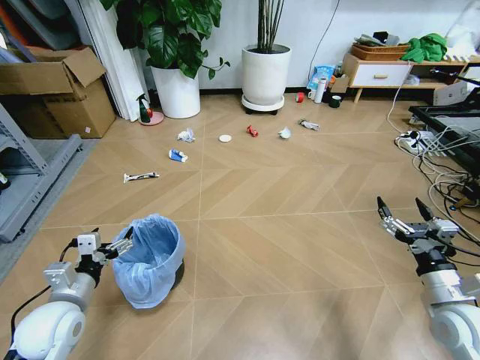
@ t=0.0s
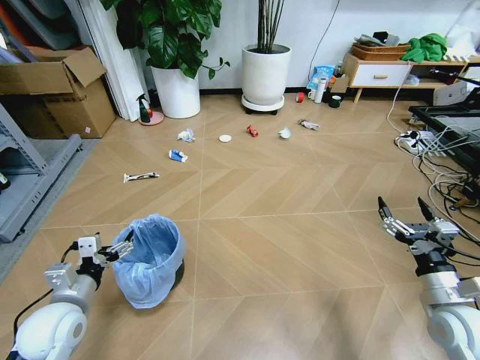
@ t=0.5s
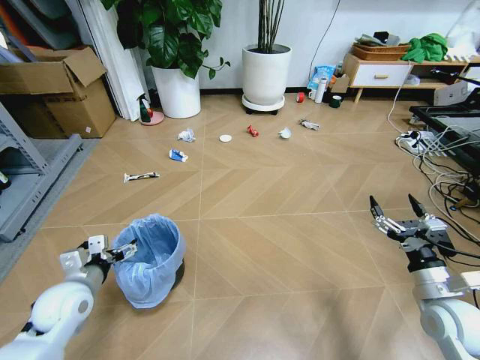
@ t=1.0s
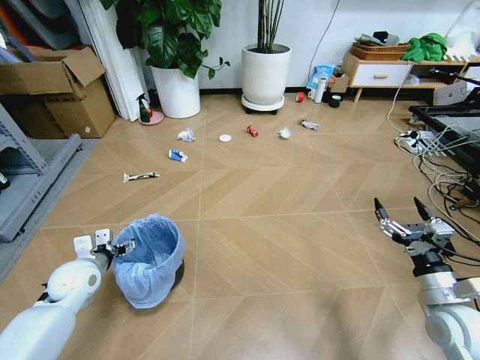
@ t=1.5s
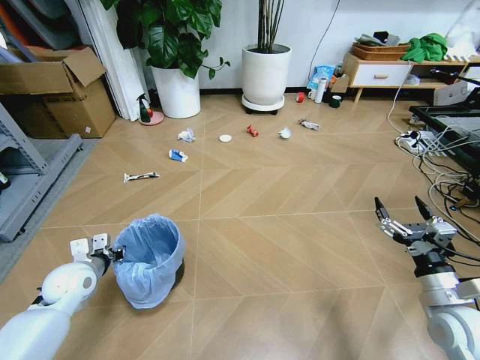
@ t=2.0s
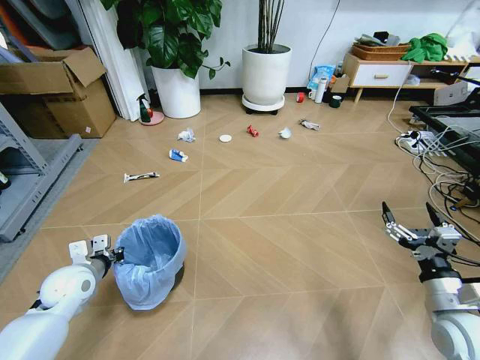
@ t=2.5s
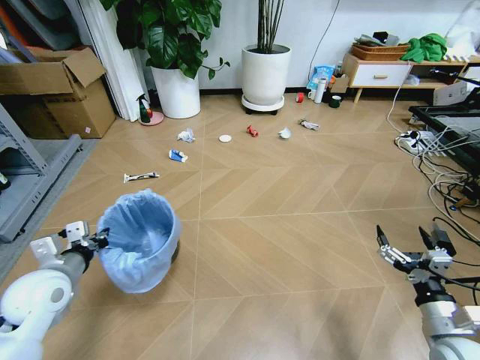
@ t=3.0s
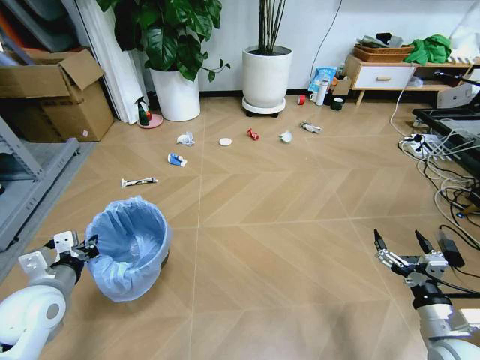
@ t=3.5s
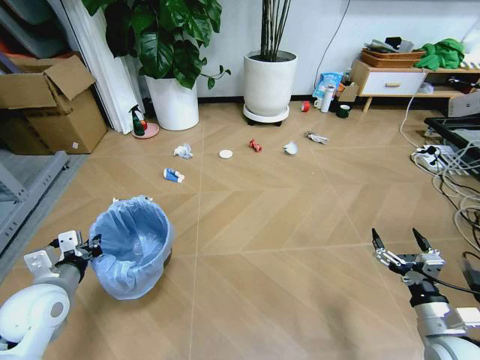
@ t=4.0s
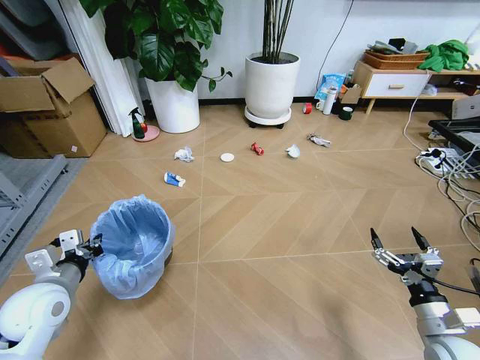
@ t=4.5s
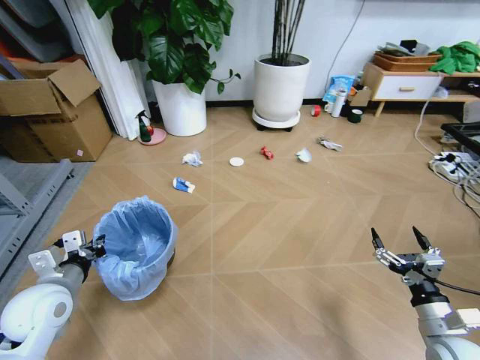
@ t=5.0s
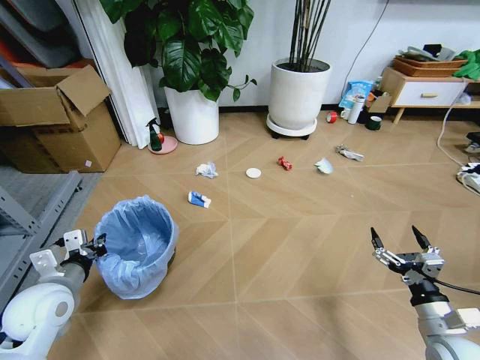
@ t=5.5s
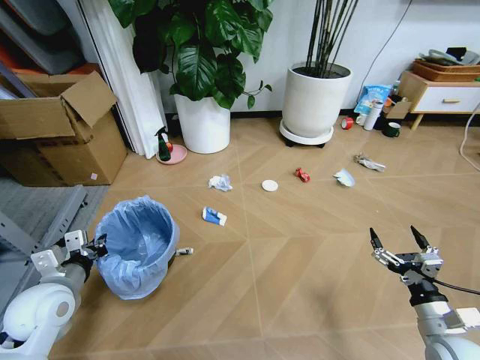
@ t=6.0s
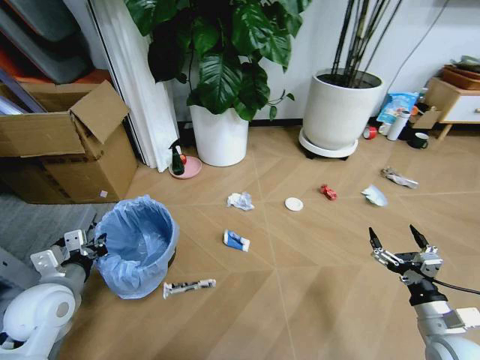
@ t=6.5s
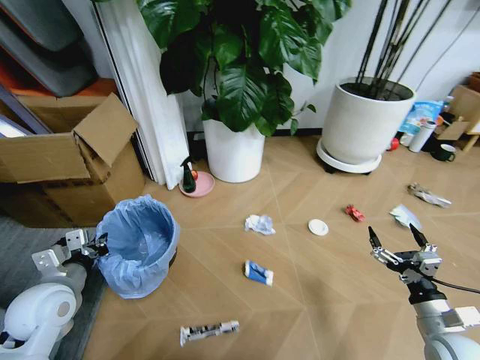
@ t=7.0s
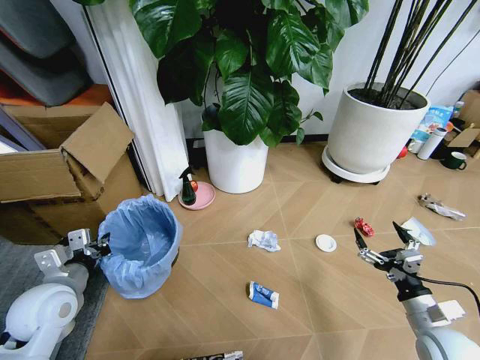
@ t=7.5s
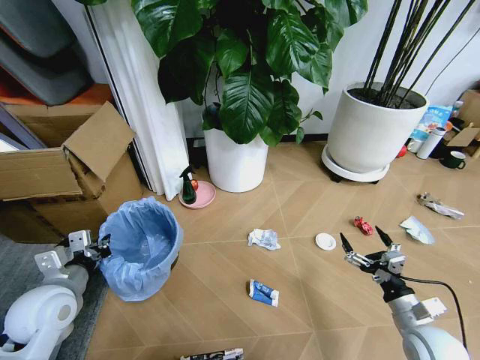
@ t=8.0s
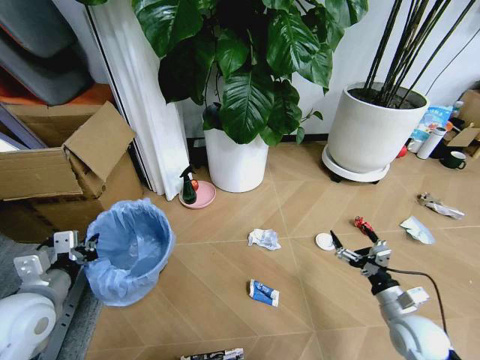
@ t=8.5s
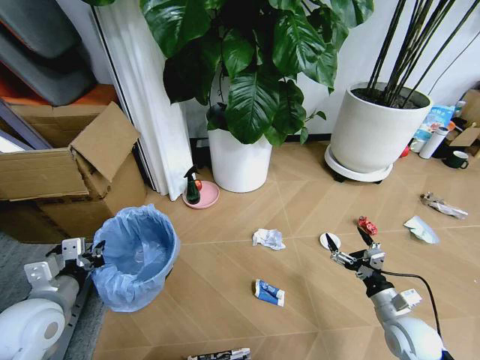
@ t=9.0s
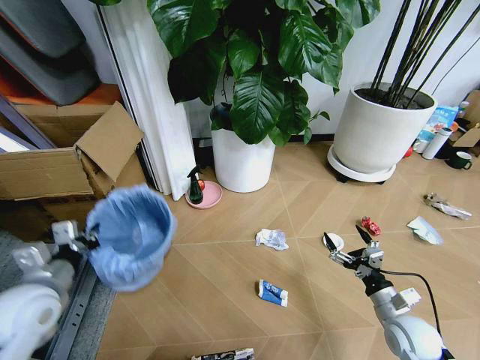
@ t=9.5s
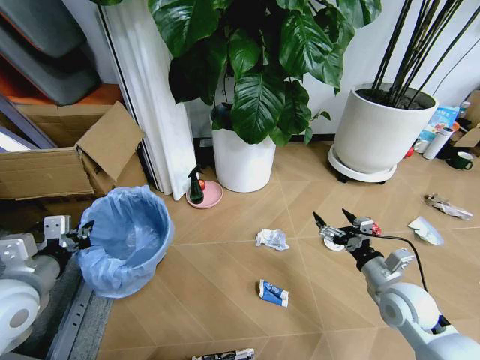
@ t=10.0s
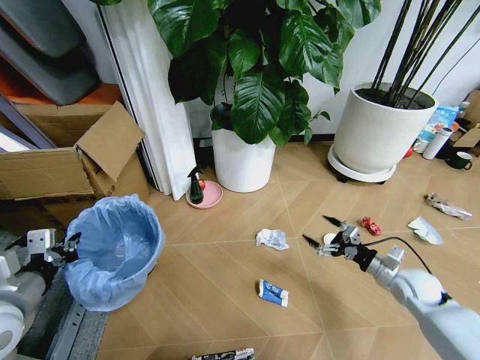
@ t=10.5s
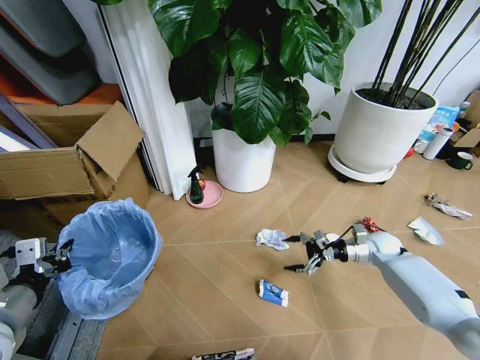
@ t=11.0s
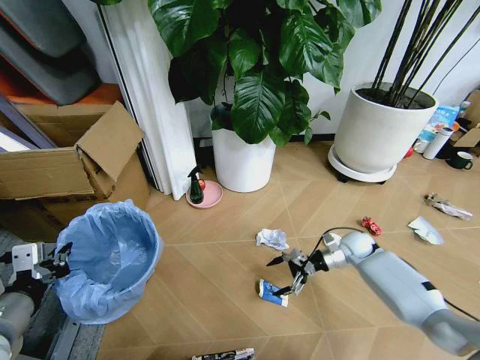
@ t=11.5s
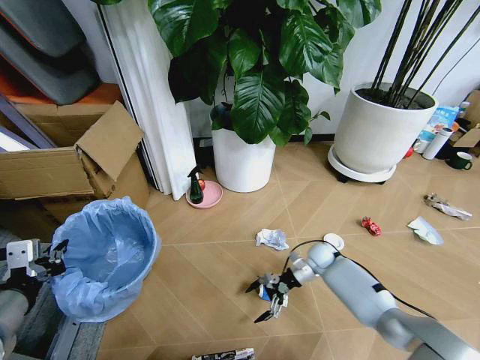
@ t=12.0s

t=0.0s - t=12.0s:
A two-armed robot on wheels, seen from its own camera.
Task of the whole recording: Pick up the trash bin and place the garbage on the floor into it.
t=2.0s - t=4.0s: The right gripper heads downward, covering approximately 5 cm; the left gripper travels backward and upward by about 10 cm.
t=8.0s - t=10.0s: The left gripper travels upward by some 5 cm, while the right gripper shifts roughly 10 cm forward and upward.
t=10.0s - t=12.0s: The left gripper heads backward, covering approximately 5 cm; the right gripper moves forward, downward and to the left, about 25 cm.

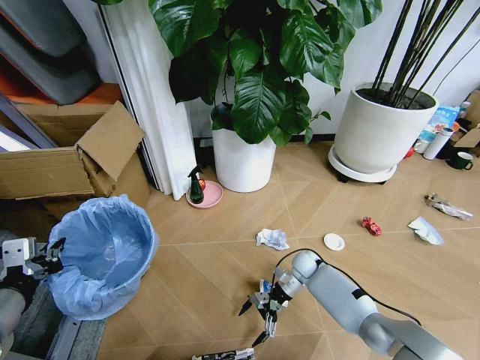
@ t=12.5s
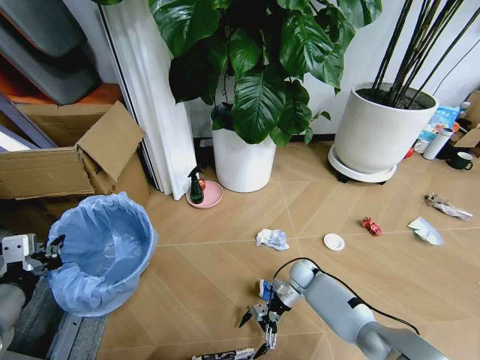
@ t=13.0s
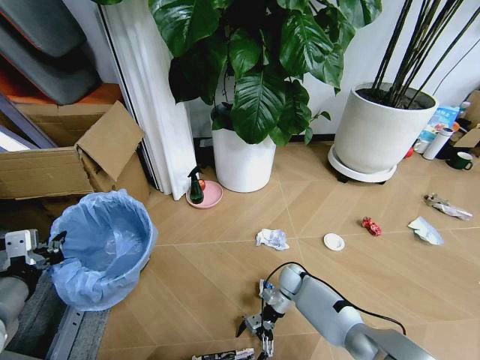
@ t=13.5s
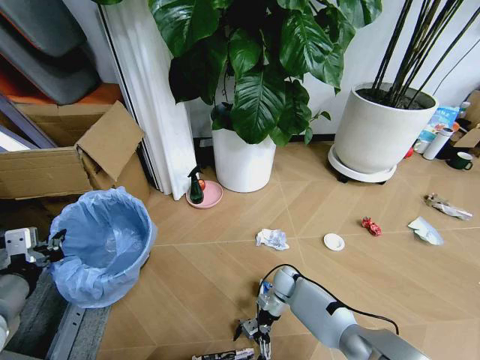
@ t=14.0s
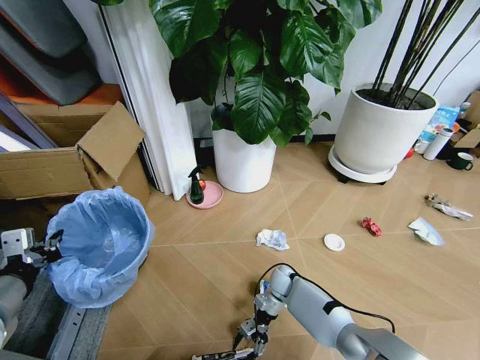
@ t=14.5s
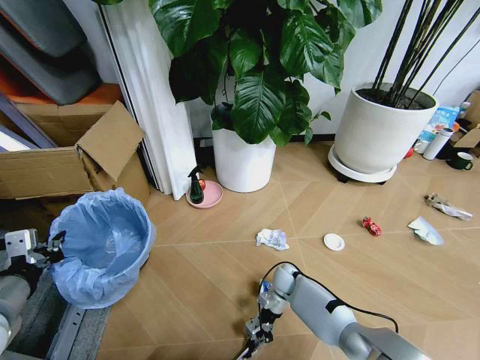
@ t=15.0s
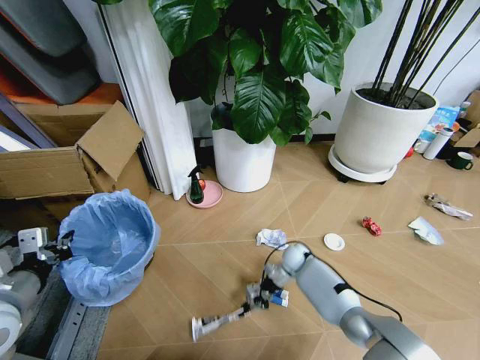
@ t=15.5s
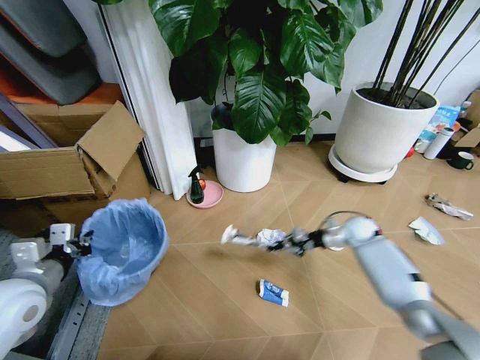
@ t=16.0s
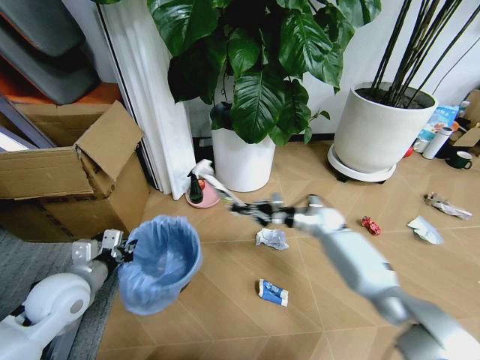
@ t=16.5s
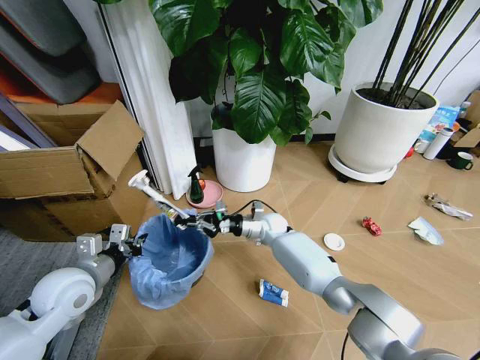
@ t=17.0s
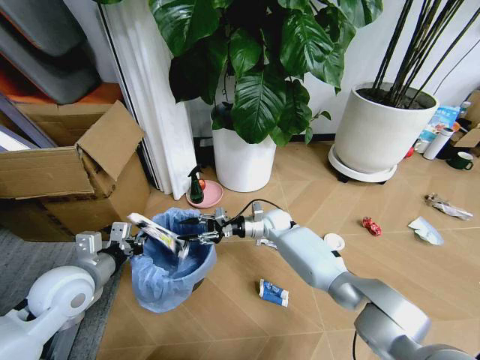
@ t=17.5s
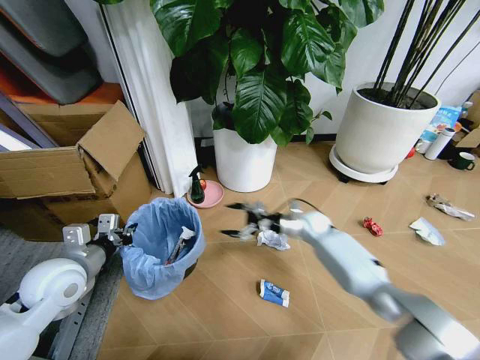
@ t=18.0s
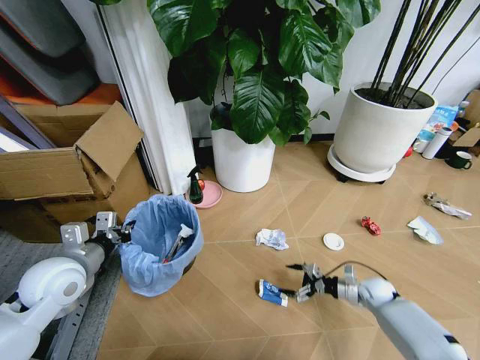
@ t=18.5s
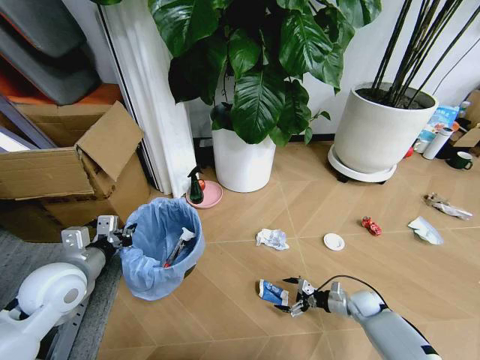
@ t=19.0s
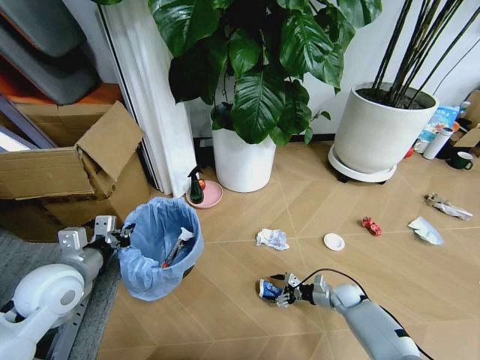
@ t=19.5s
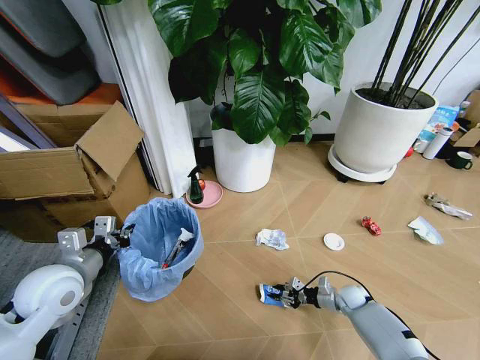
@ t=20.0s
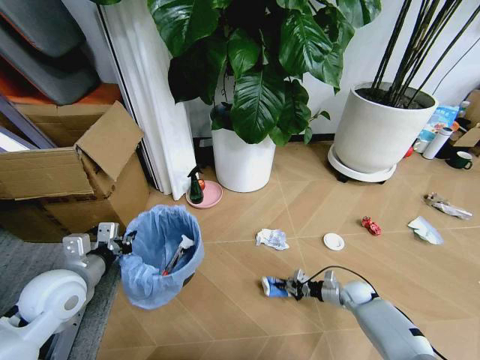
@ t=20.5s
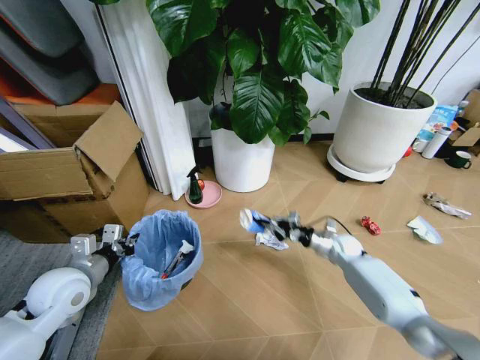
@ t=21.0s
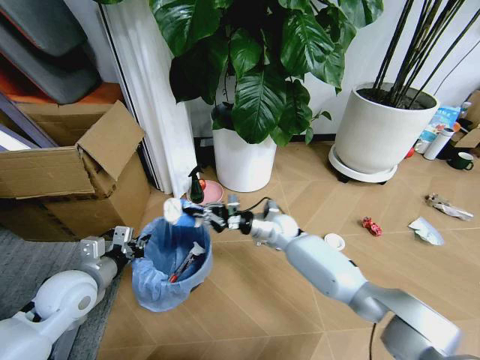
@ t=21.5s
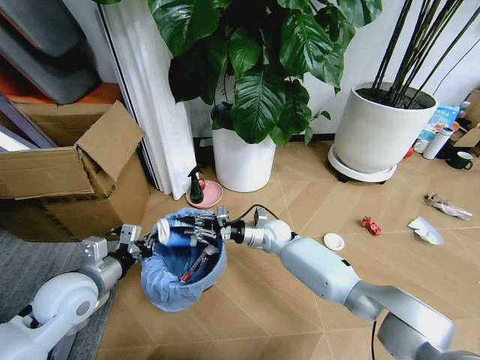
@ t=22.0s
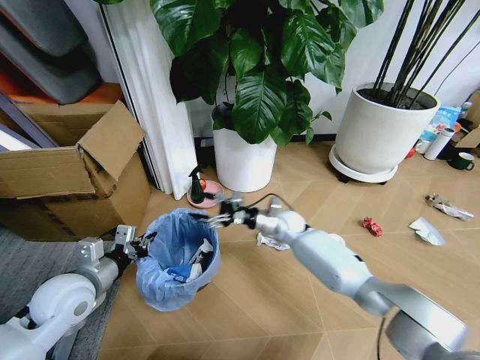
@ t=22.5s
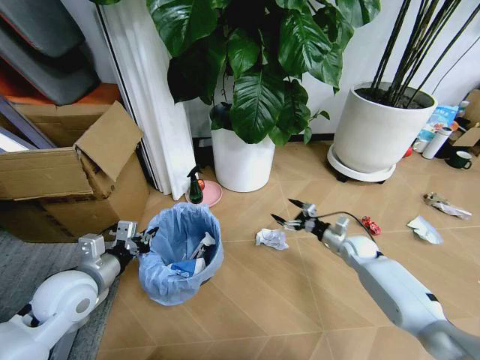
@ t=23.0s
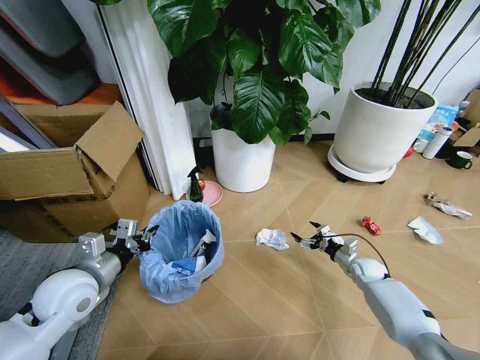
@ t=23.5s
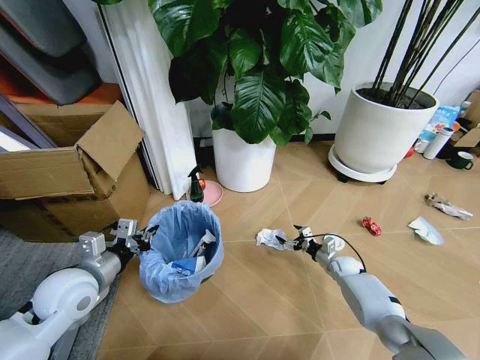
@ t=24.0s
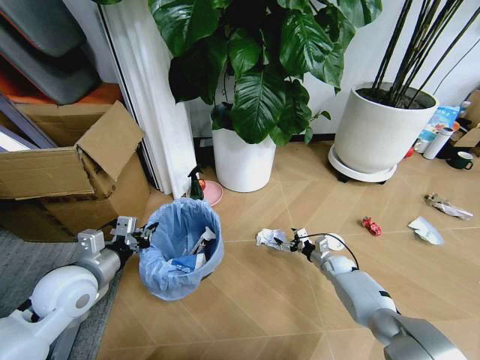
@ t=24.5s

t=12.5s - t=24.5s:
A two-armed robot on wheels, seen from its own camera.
Task of the whole recording: Pick up the trash bin and place the garbage on the floor into it.
t=12.5s - t=14.5s: The right gripper travels to the left by some 5 cm, and closes its fingers.
t=14.5s - t=16.5s: The left gripper is displaced downward and forward by some 15 cm; the right gripper heads upward, to the right and forward, covering roughly 25 cm, and closes its fingers.
t=16.5s - t=18.5s: The right gripper goes some 25 cm backward, downward and to the right, and opens.
t=18.5s - t=20.5s: The right gripper moves some 5 cm, and closes.
t=20.5s - t=22.5s: The right gripper is displaced to the left, upward and forward by roughly 30 cm, and opens its fingers.
t=22.5s - t=24.5s: The right gripper heads to the right and downward, covering roughly 25 cm.

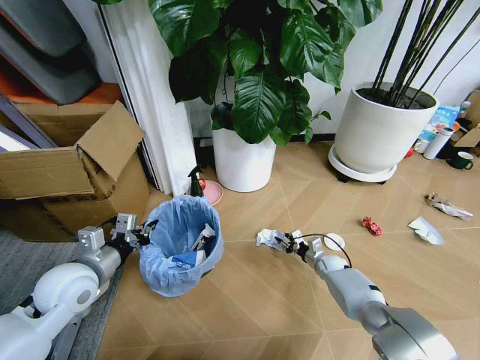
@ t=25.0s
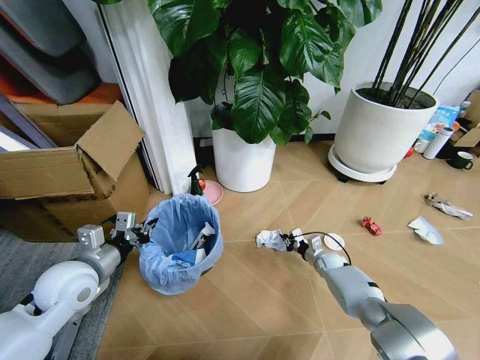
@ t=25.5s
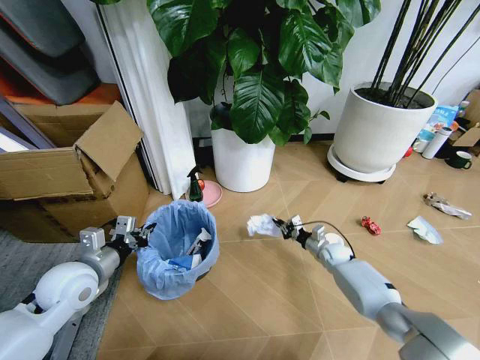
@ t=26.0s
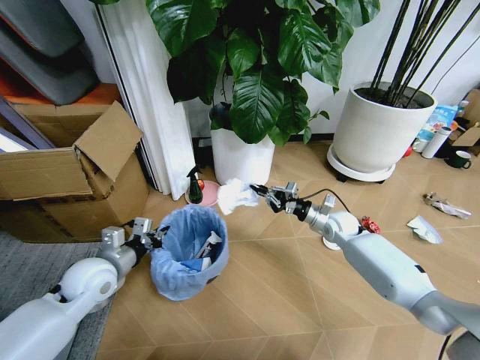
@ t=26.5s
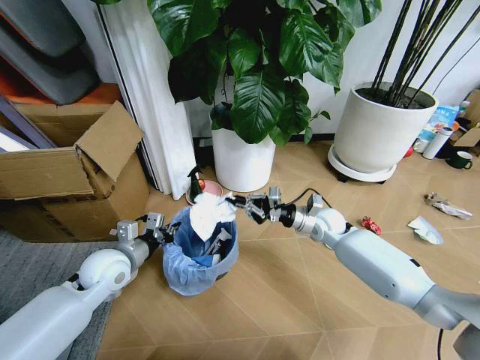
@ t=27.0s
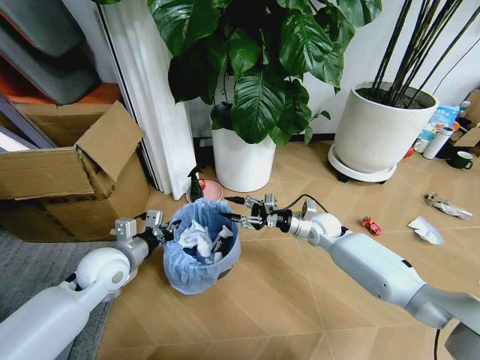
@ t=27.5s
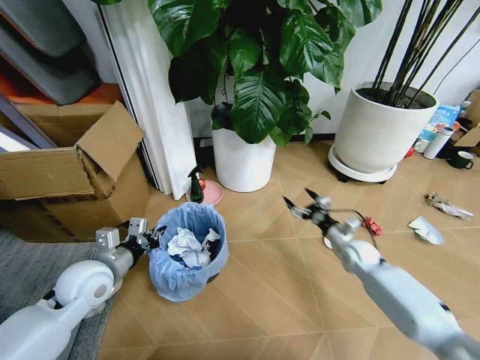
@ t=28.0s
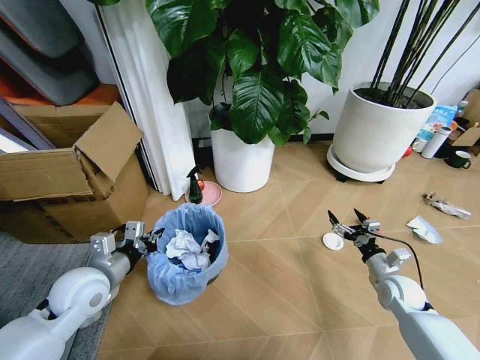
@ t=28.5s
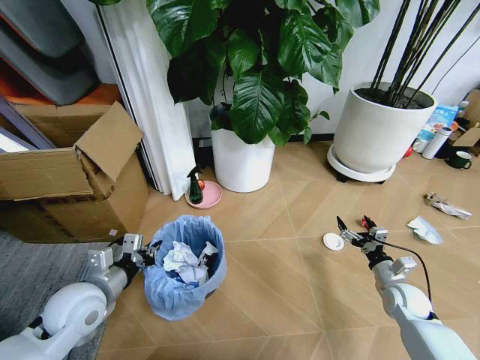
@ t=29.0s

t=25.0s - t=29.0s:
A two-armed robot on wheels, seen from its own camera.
Task of the whole recording: Pick up the trash bin and place the garbage on the floor into it.
t=25.0s - t=27.0s: The left gripper is displaced forward by approximately 5 cm. The right gripper is displaced upward by roughly 25 cm.
t=27.0s - t=29.0s: The right gripper travels to the right, backward and downward by about 30 cm, and opens up, while the left gripper is displaced backward by approximately 10 cm.
